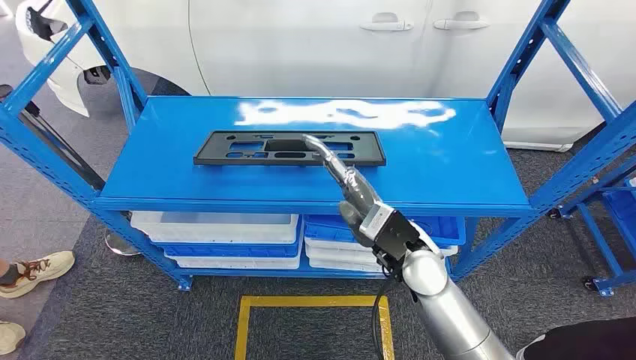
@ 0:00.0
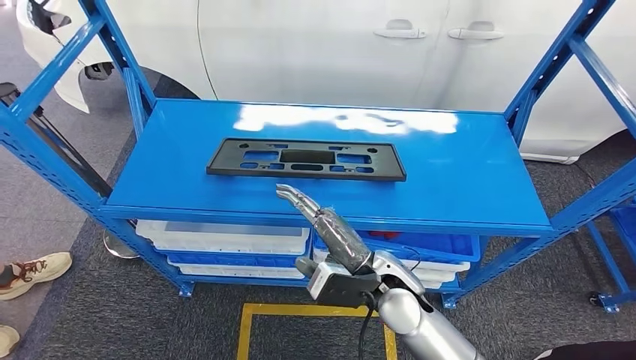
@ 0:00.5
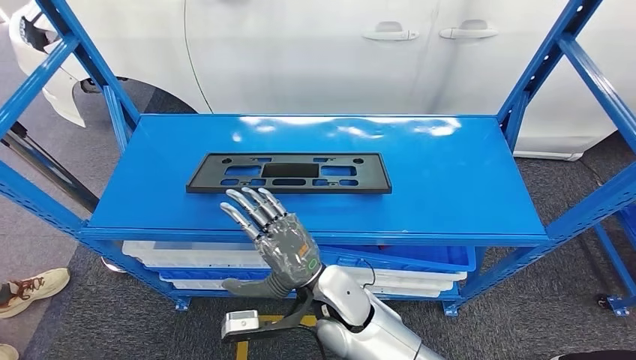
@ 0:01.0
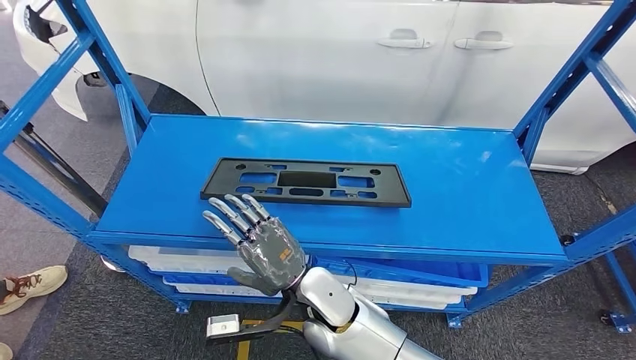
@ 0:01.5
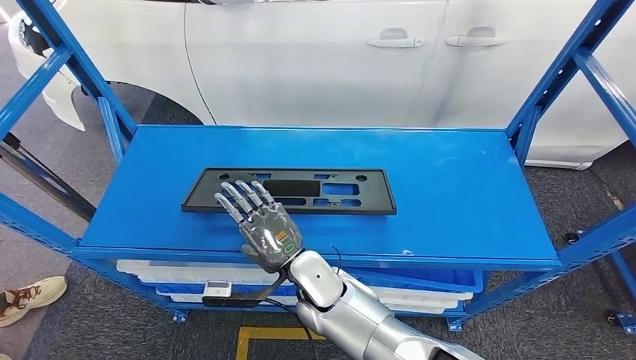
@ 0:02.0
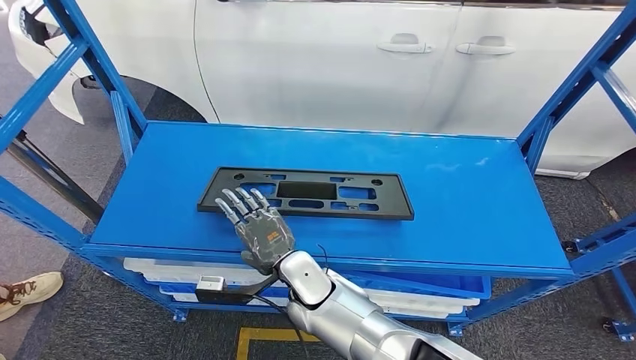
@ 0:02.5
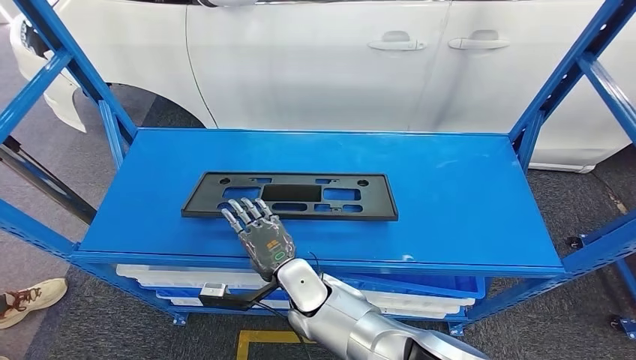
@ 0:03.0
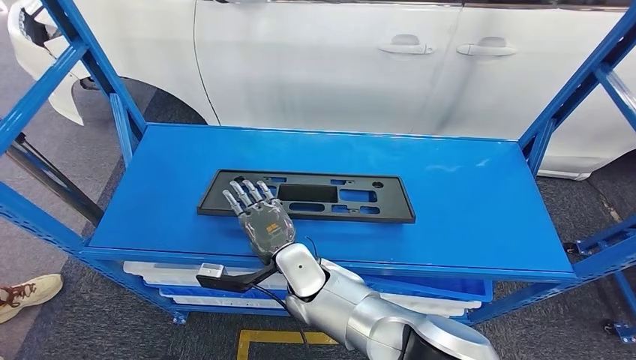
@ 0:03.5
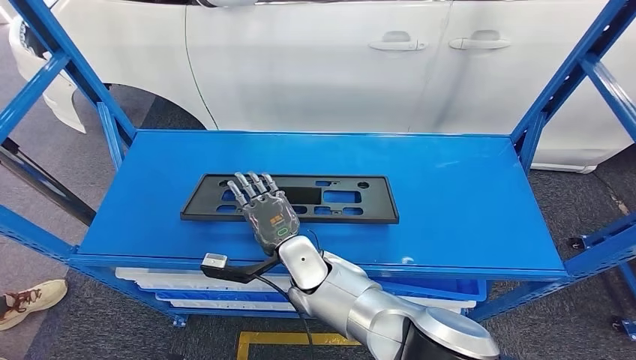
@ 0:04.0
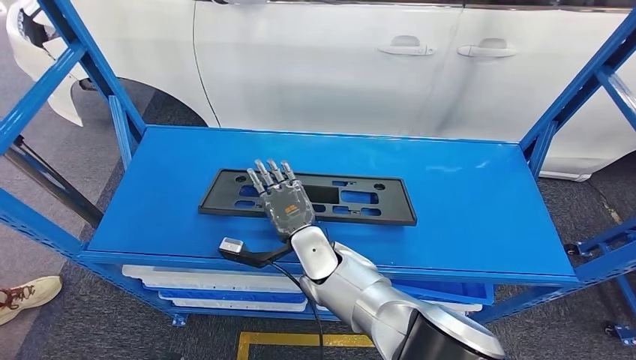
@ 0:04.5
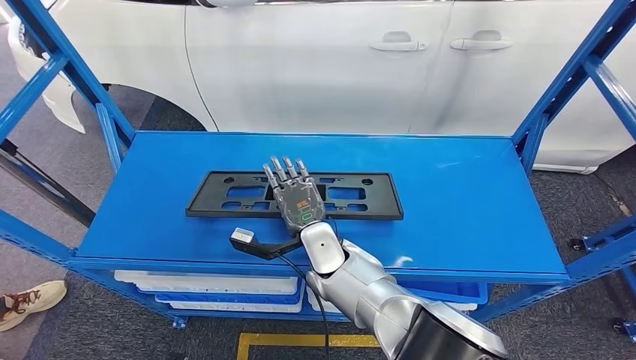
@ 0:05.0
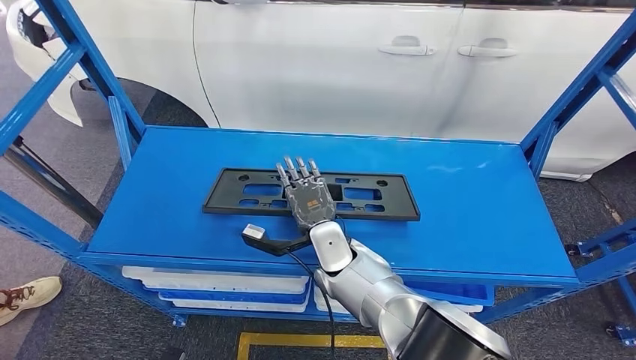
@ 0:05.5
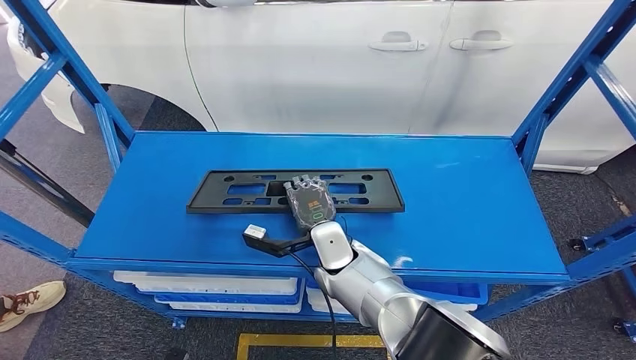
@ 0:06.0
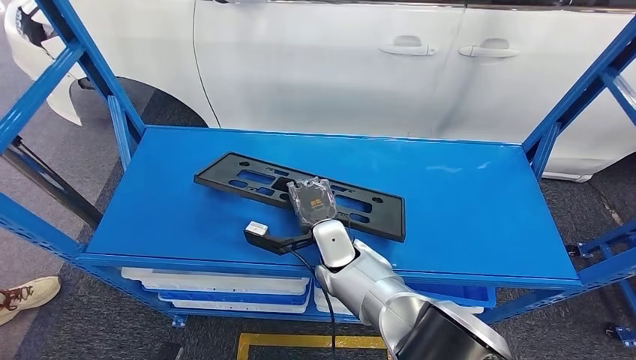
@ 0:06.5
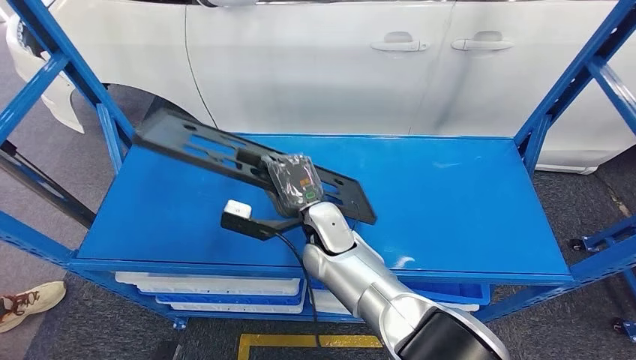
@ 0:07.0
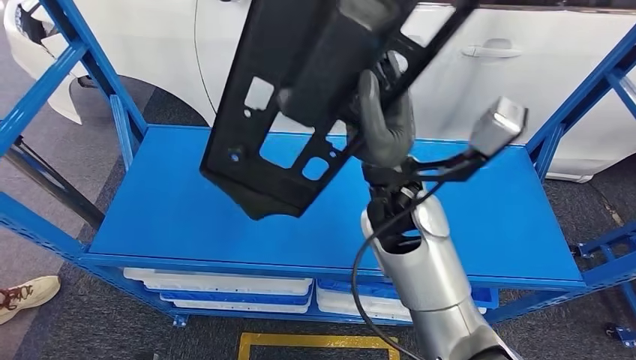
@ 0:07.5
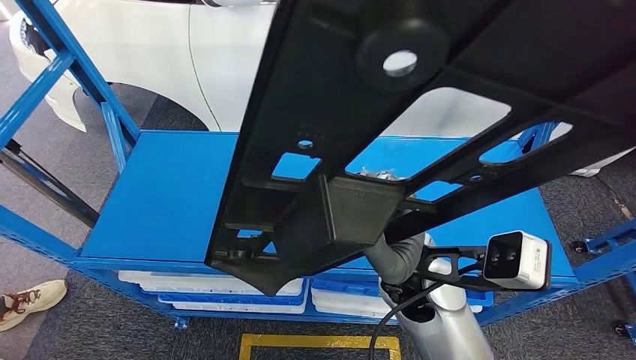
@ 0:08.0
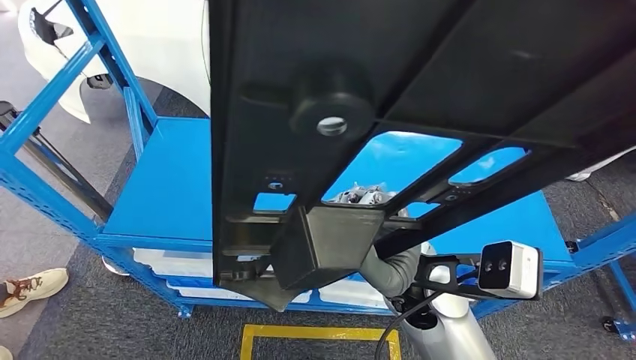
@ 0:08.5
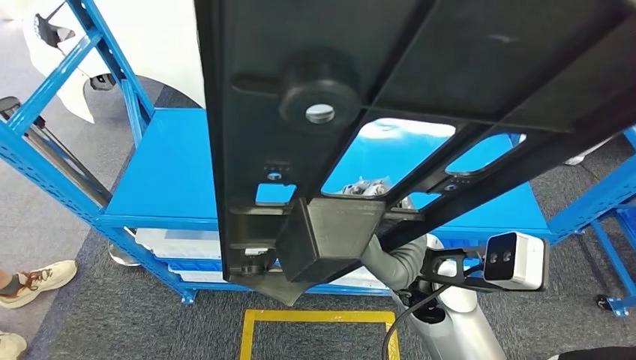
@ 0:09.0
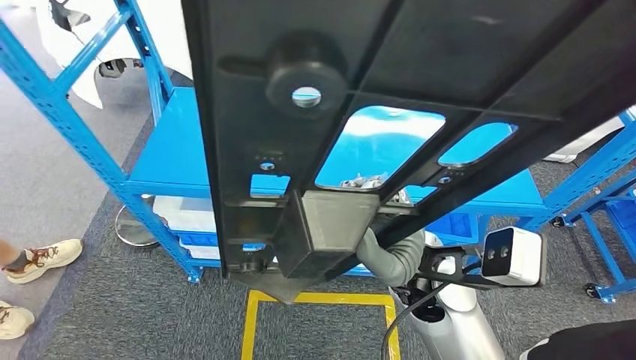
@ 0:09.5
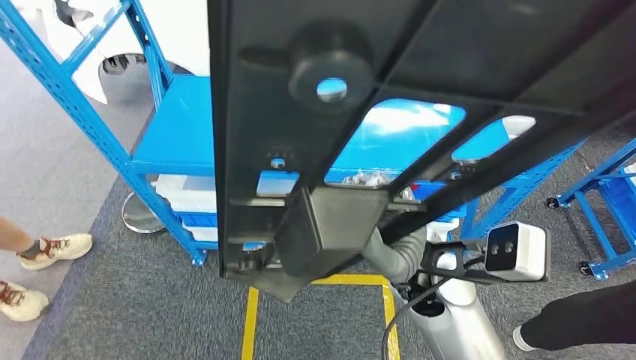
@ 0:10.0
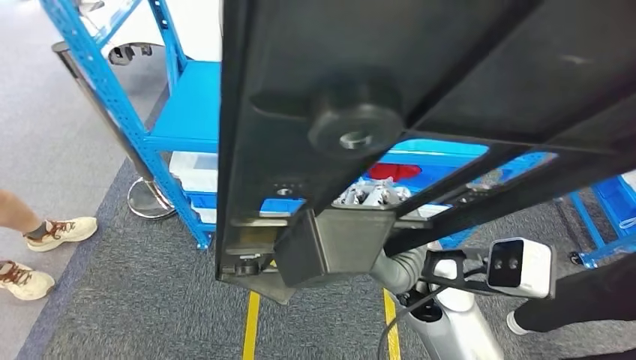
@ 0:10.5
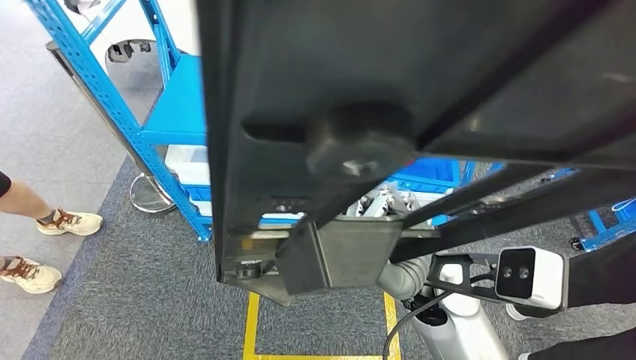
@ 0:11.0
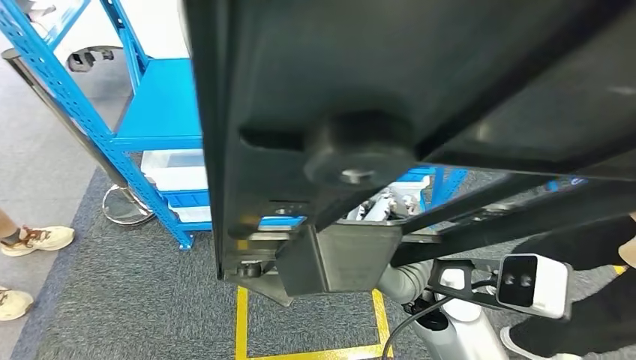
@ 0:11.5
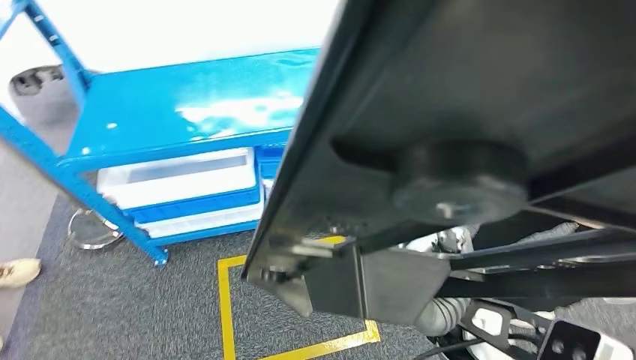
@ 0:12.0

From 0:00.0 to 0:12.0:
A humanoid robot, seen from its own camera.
Step, from 0:00.0 to 0:08.0: Pick up the small component from the shelf.
From 0:04.0 to 0:06.0: The right hand moves about 5 cm.

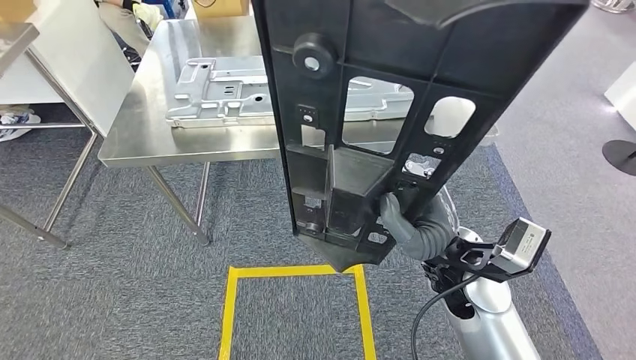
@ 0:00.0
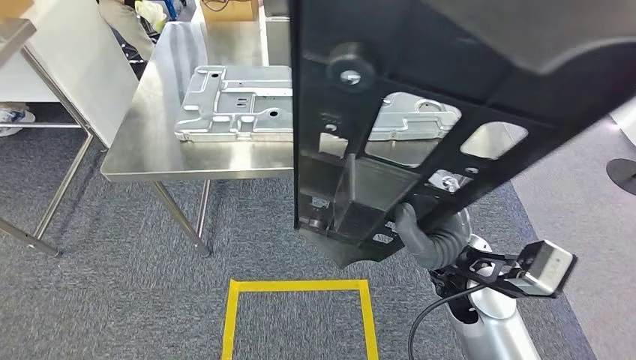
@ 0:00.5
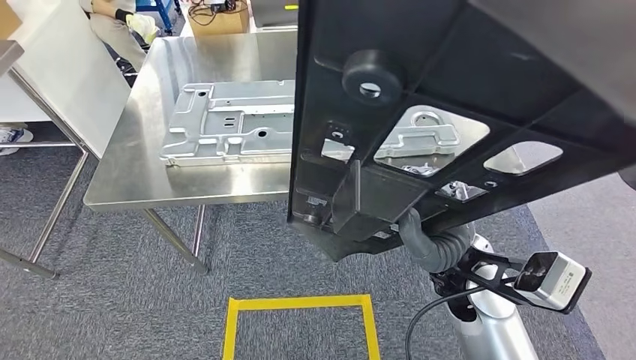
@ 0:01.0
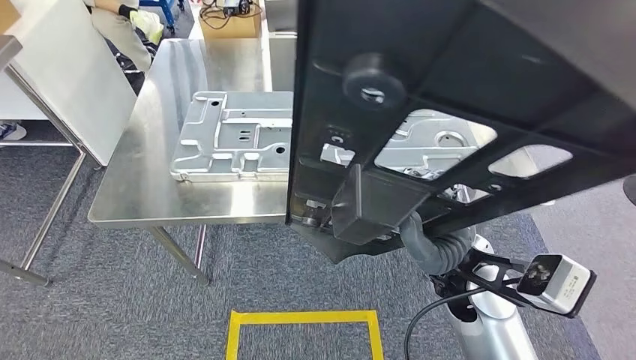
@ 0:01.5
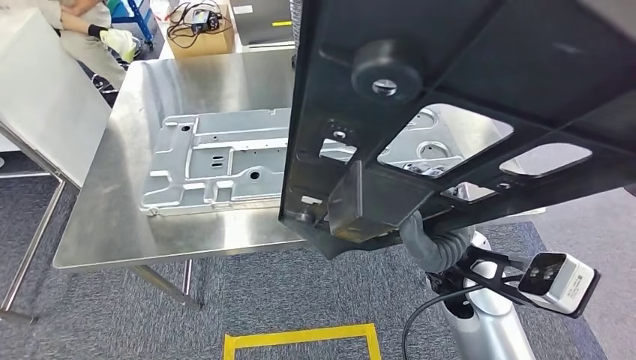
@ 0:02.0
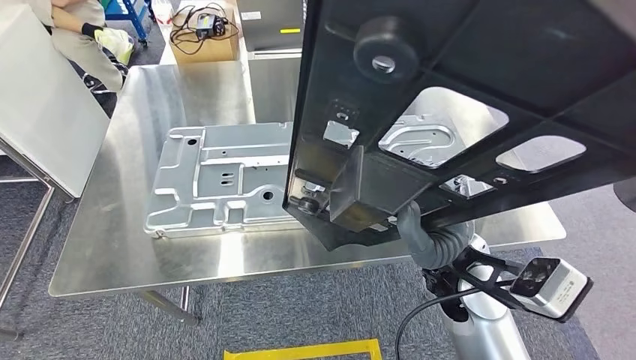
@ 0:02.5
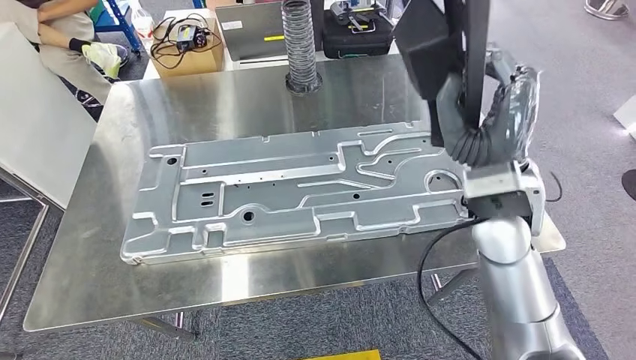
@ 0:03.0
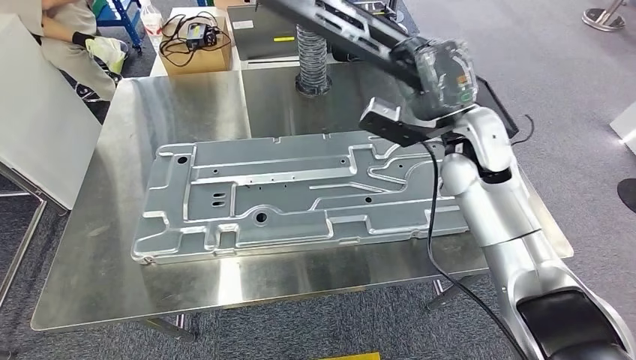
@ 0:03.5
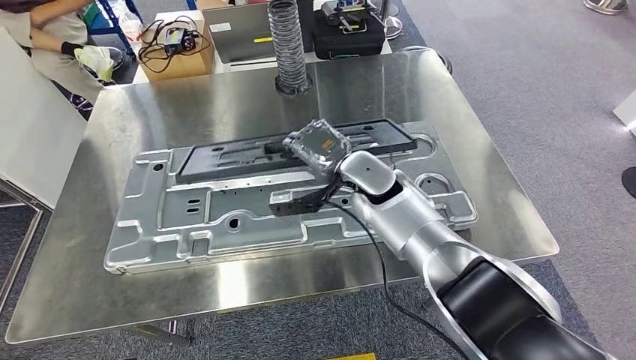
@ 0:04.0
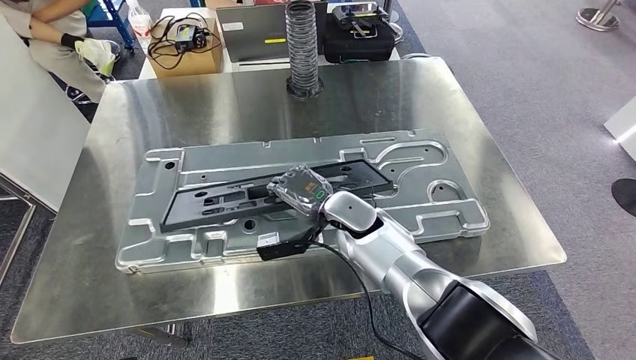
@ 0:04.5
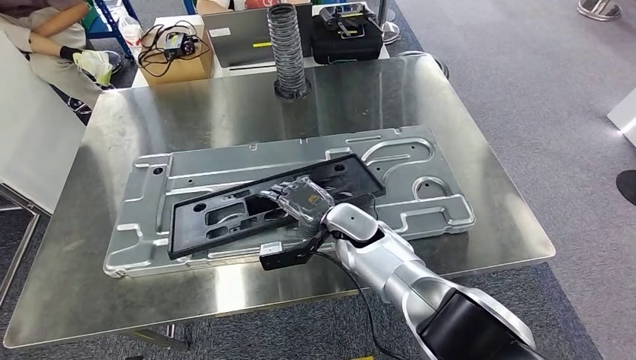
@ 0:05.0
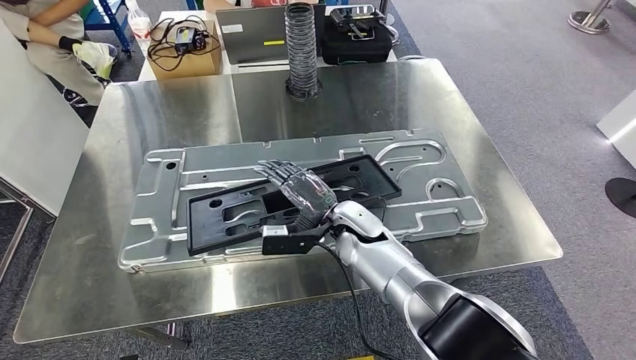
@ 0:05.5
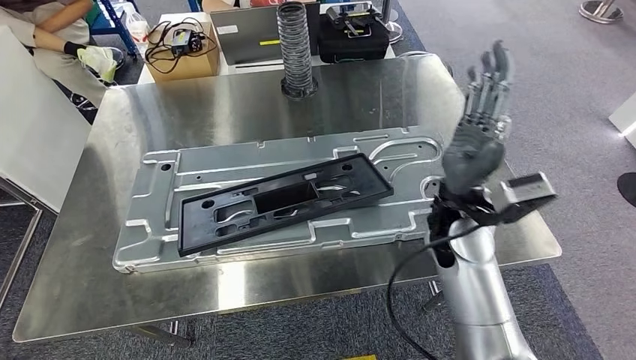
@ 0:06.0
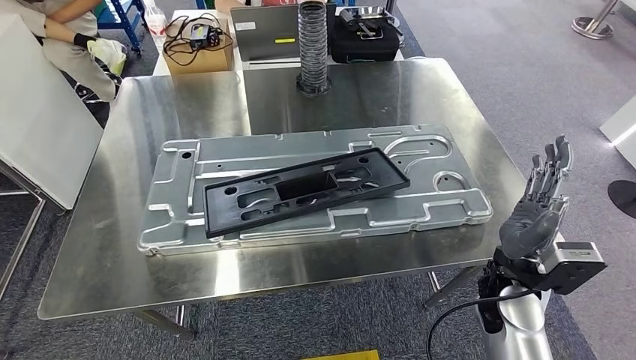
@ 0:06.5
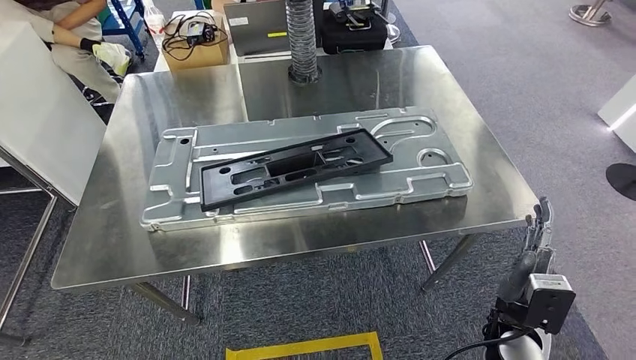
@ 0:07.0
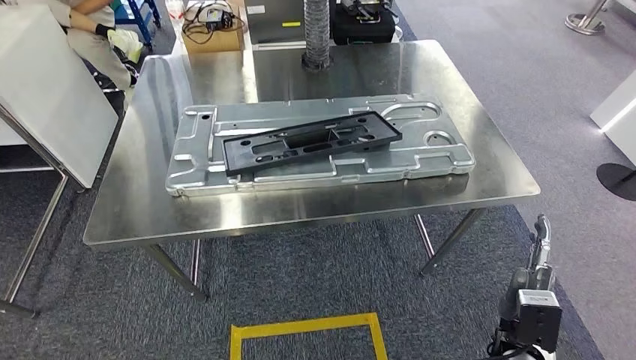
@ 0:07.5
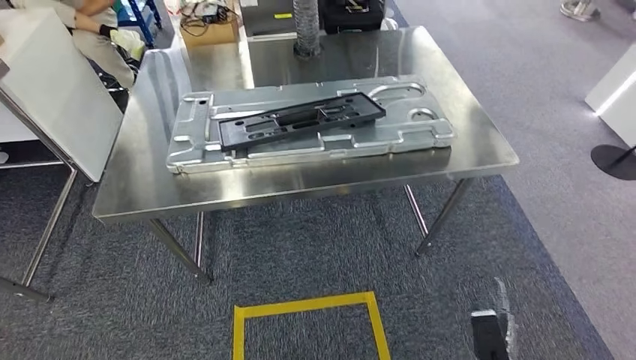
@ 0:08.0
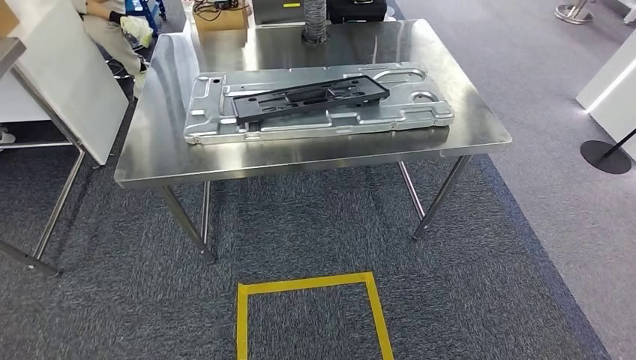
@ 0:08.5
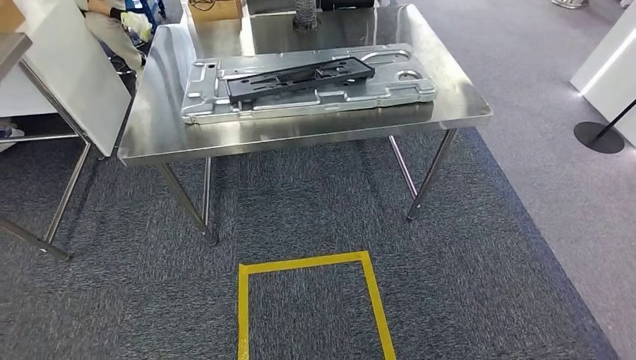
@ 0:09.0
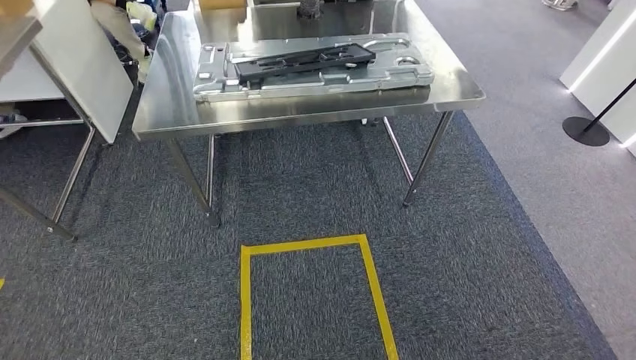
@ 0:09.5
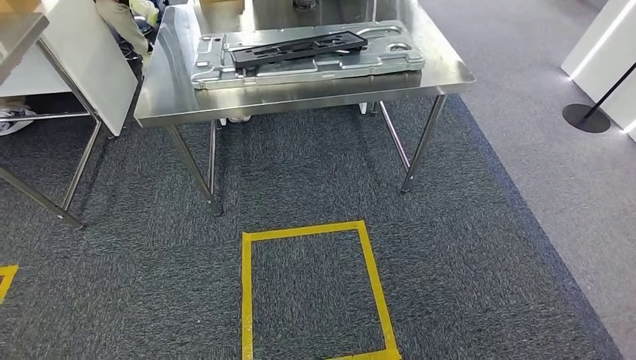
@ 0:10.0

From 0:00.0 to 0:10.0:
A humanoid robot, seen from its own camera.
Step, from 0:01.5 to 0:06.0: Insert the small component into the corresponding slot on the workbench.
Step, from 0:06.5 to 0:10.0: Return to the initial position at the workbench.
